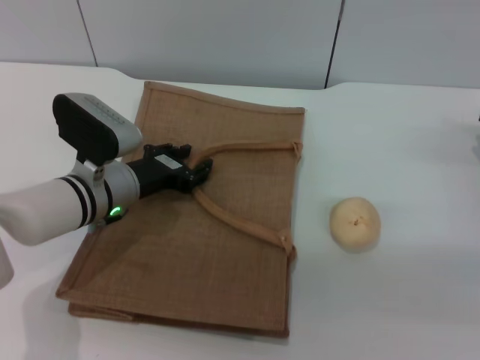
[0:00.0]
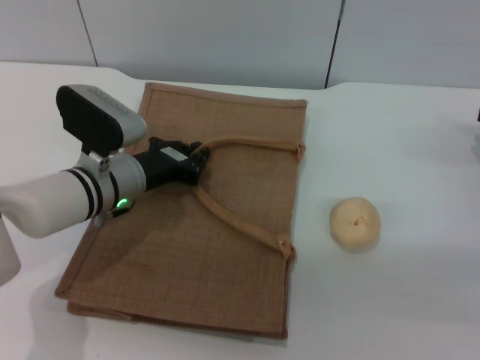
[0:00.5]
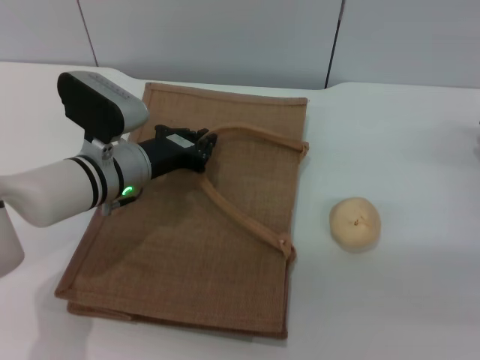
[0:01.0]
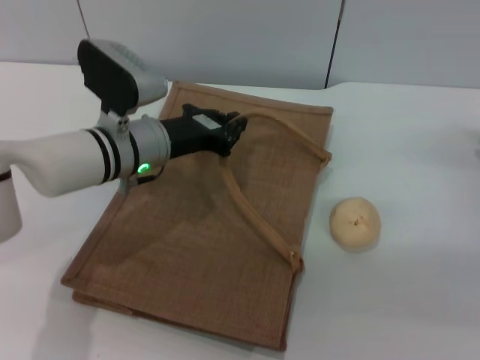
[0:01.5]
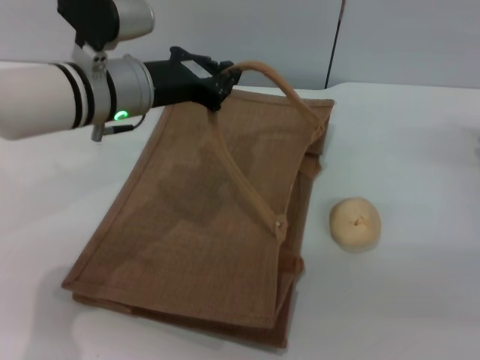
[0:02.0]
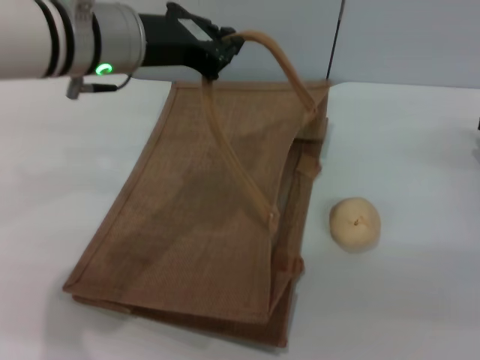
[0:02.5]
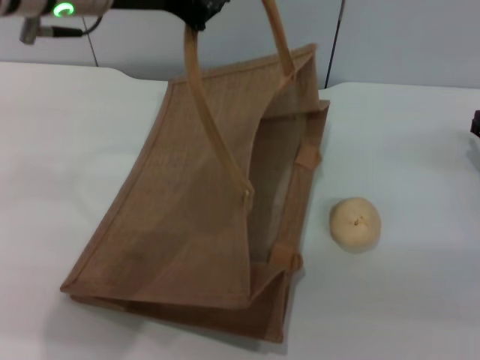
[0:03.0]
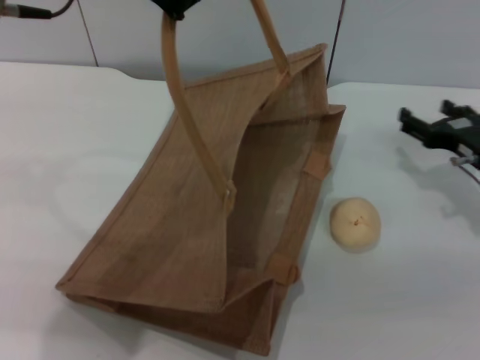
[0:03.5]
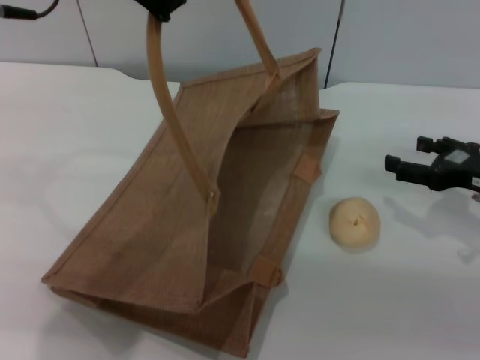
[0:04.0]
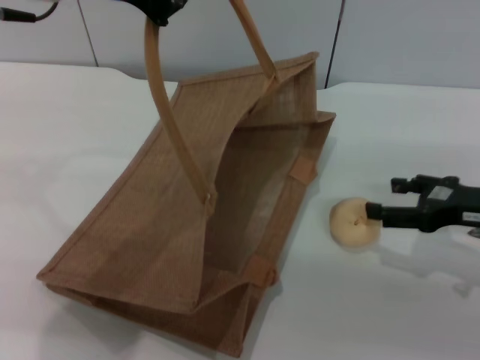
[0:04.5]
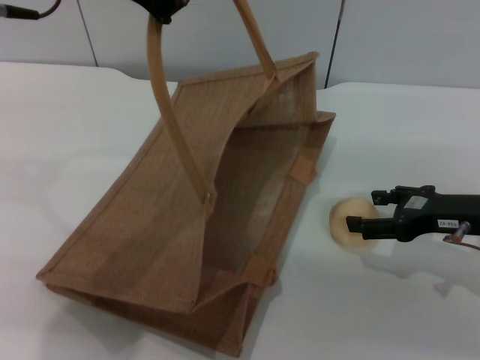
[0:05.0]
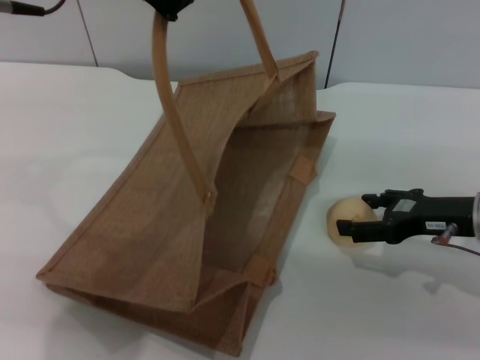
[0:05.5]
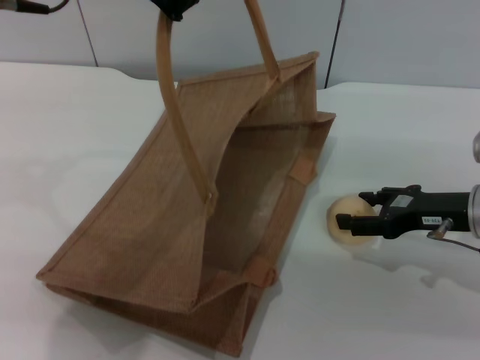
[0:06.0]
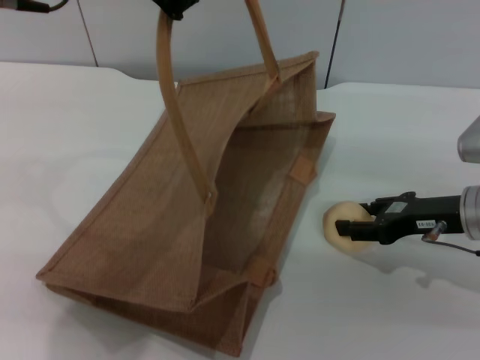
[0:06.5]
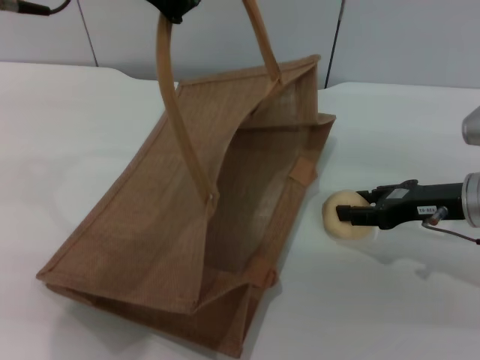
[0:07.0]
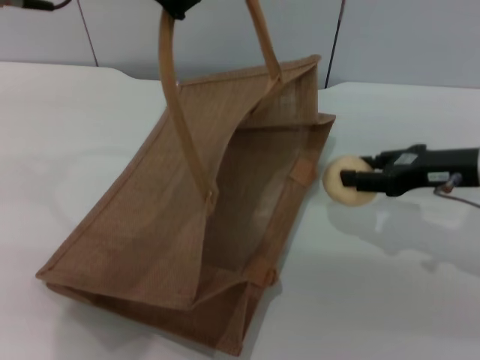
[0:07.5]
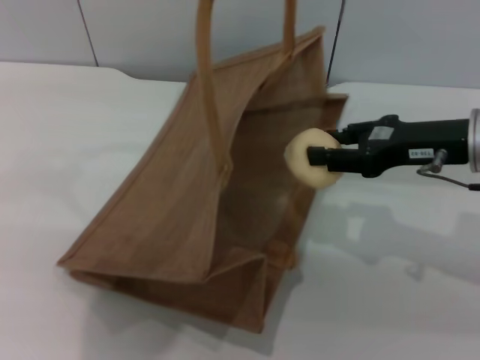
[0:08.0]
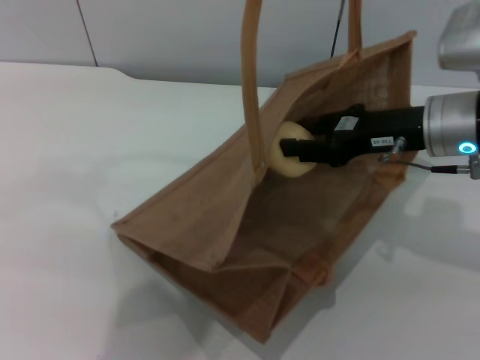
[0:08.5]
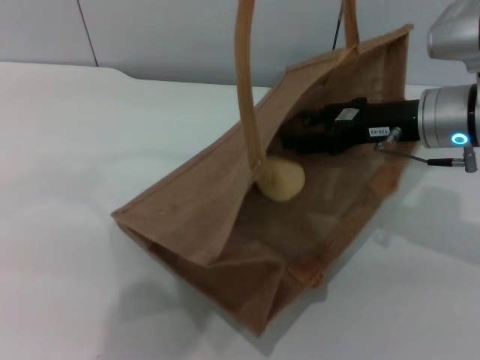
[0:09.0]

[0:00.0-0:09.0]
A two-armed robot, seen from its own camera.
Task of the whole recording: pick up the egg yolk pastry from the table and place it in the brown handbag.
Step, 0:00.0 to 0:03.5: Lift the woven bag with the left gripper to open it.
Step, 0:04.0 to 0:07.0: Pick up the egg yolk pastry with the right gripper.
0:00.0 to 0:02.0: The left gripper moves upward, approximately 15 cm, and closes.
0:02.0 to 0:04.5: The right gripper travels backward by some 5 cm. The left gripper moves upward, approximately 15 cm.
0:04.5 to 0:07.0: The right gripper moves about 5 cm, and closes.
0:07.0 to 0:09.0: The left gripper heads to the right, covering approximately 5 cm. Meanwhile the right gripper is displaced upward and to the left by some 10 cm.

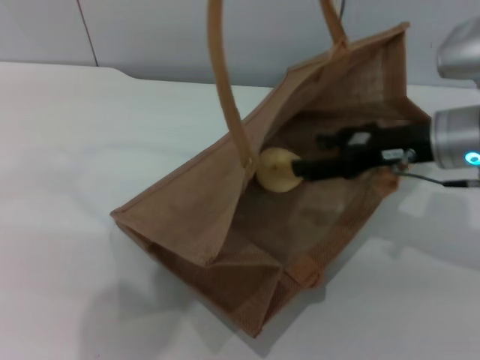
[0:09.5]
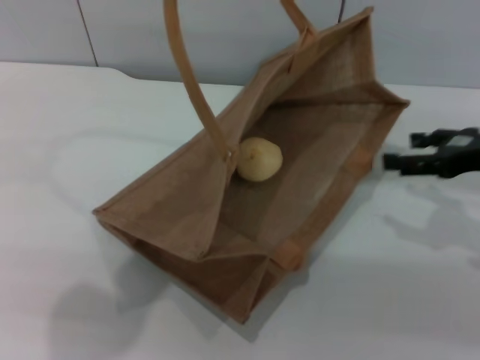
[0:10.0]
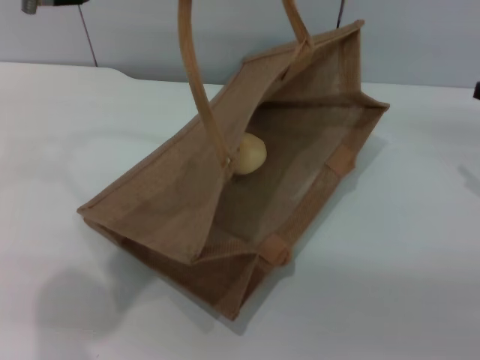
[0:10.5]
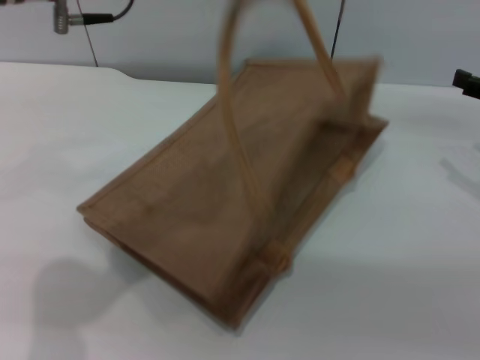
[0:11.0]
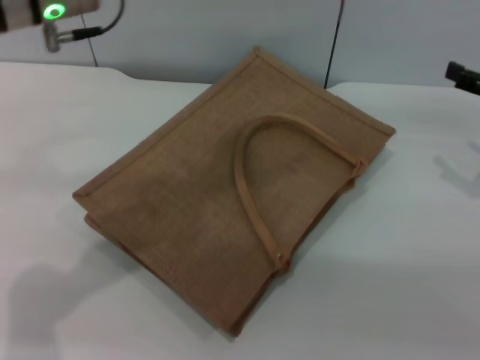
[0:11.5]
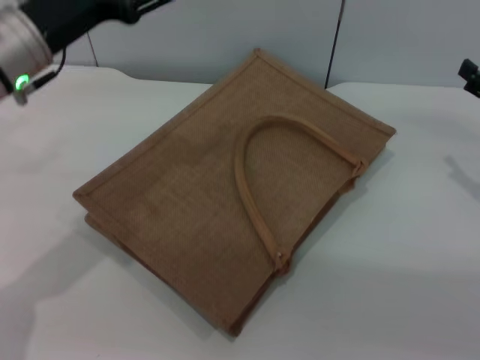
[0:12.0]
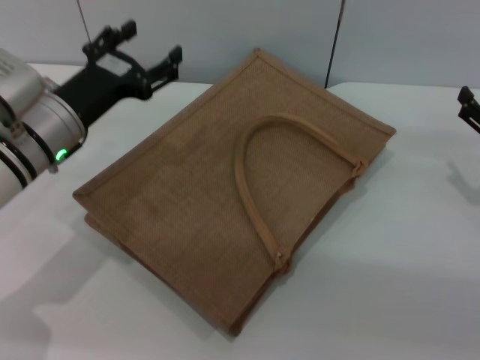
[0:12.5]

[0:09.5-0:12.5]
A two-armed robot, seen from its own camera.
Task of the whole recording: pick up the egg yolk pastry from the table and place it in the brown handbag.
Step, 0:10.0 to 0:11.0: Lower the woven bag with the left gripper to close it.
0:09.5 to 0:11.0: The right gripper goes roughly 15 cm to the right, while the left gripper moves downward, approximately 5 cm, and opens its fingers.
0:11.0 to 0:12.5: The right gripper goes about 10 cm downward, while the left gripper shifts approximately 20 cm downward, and opens its fingers.
